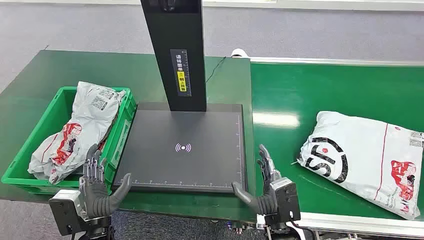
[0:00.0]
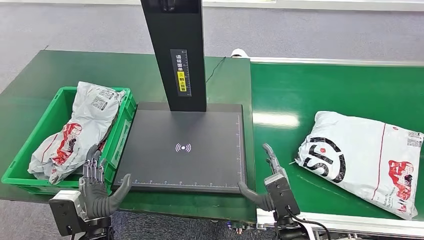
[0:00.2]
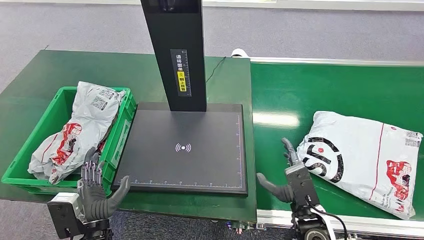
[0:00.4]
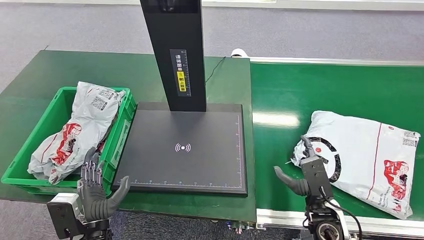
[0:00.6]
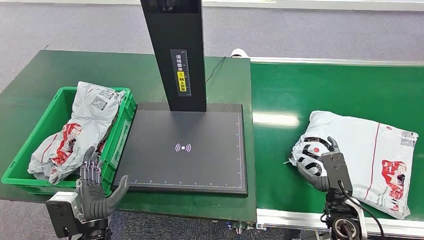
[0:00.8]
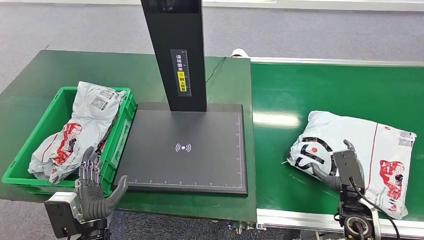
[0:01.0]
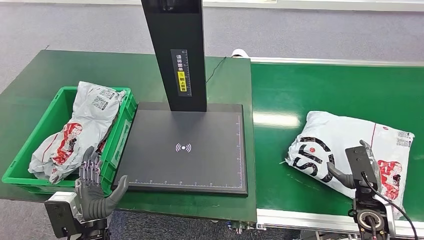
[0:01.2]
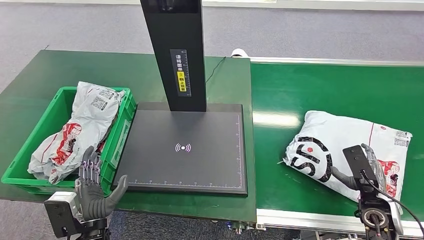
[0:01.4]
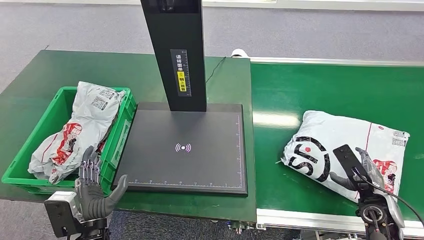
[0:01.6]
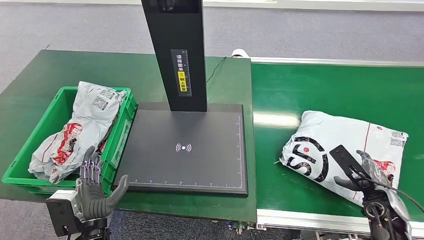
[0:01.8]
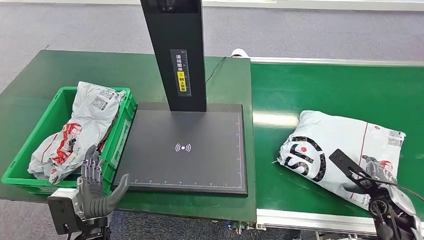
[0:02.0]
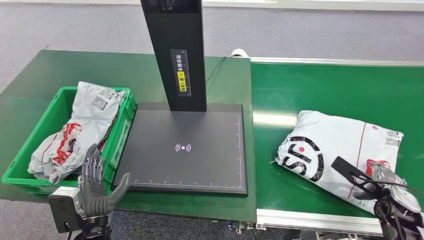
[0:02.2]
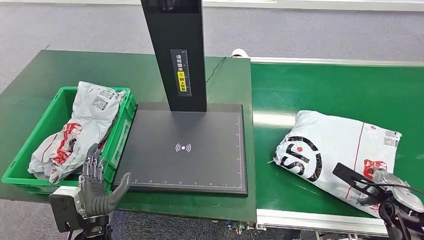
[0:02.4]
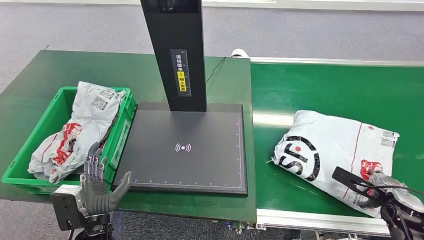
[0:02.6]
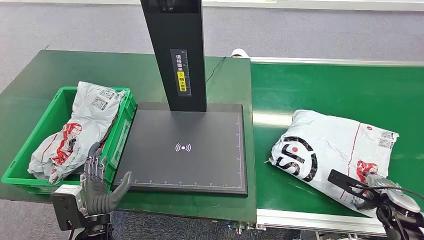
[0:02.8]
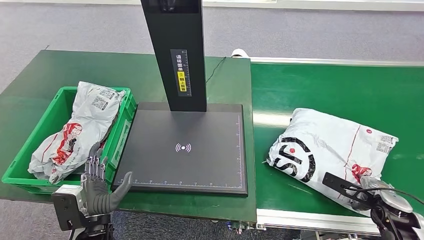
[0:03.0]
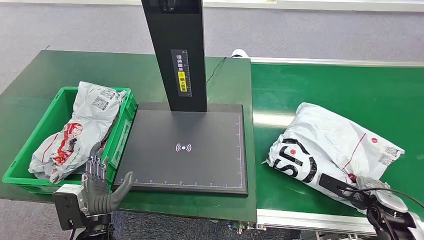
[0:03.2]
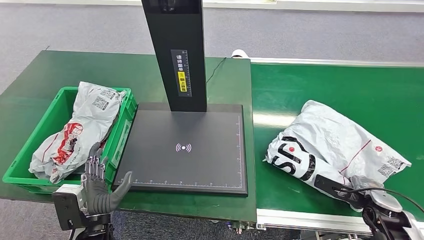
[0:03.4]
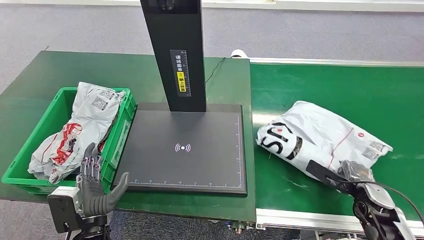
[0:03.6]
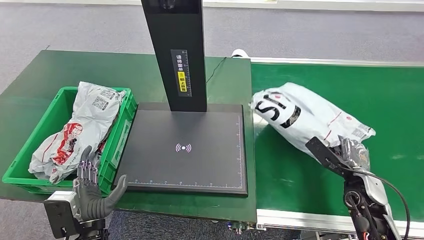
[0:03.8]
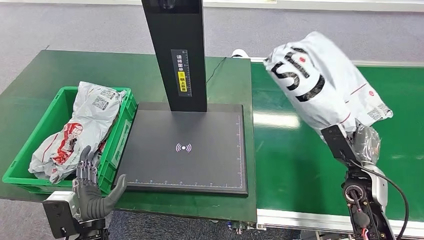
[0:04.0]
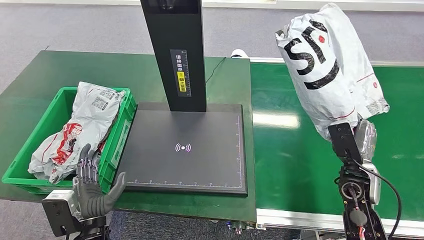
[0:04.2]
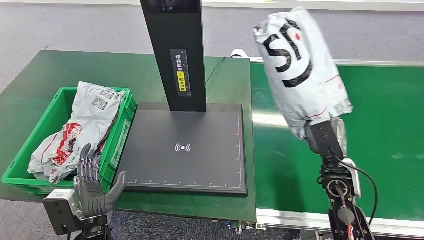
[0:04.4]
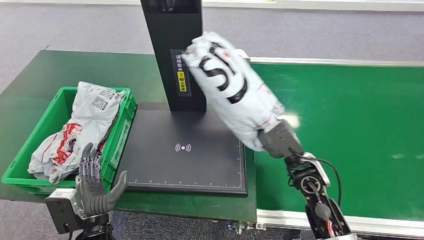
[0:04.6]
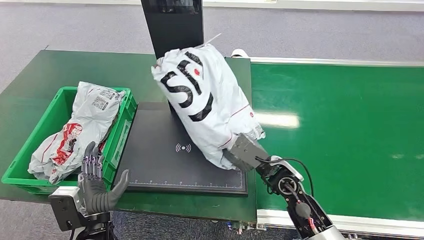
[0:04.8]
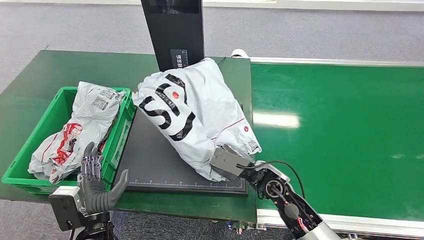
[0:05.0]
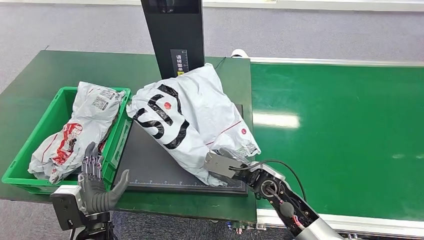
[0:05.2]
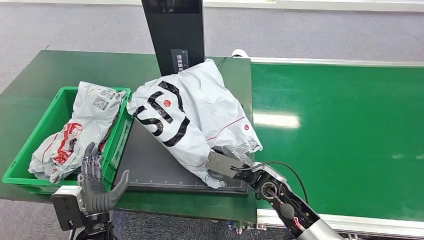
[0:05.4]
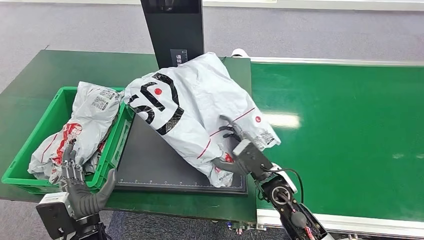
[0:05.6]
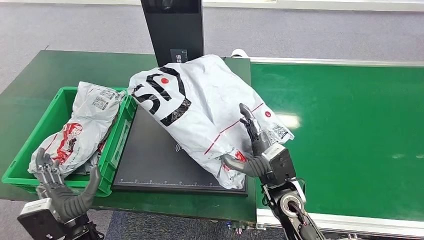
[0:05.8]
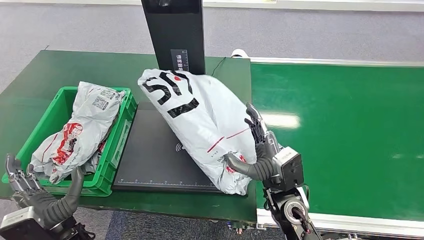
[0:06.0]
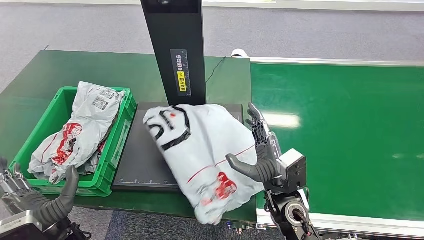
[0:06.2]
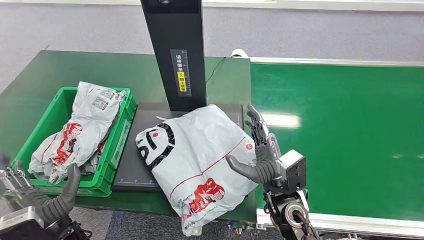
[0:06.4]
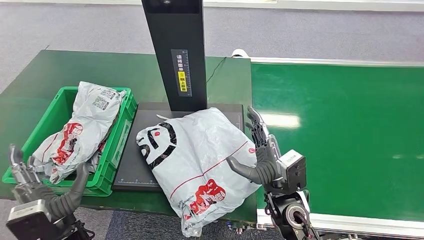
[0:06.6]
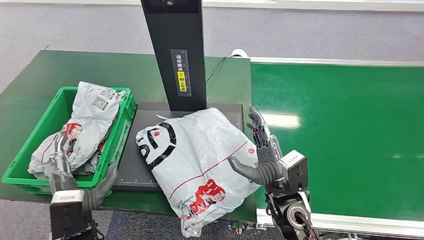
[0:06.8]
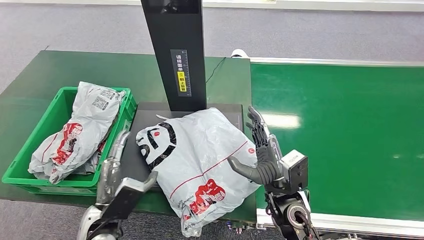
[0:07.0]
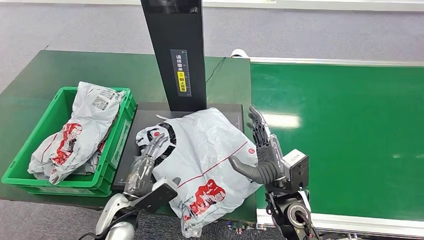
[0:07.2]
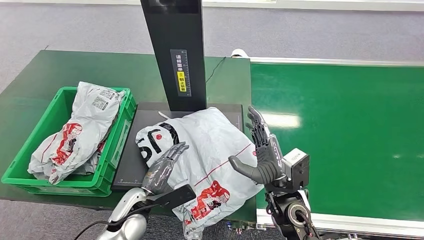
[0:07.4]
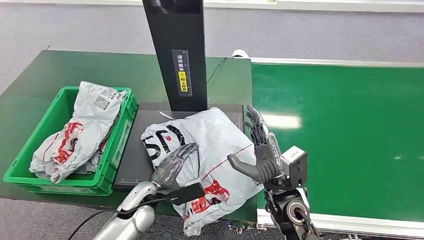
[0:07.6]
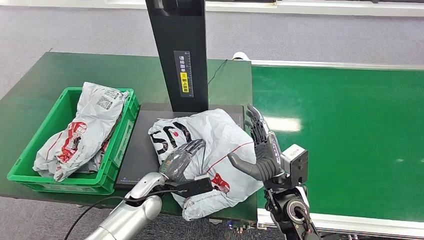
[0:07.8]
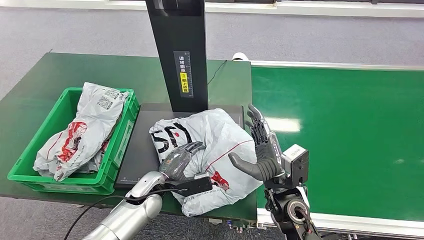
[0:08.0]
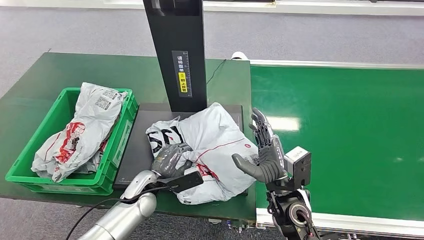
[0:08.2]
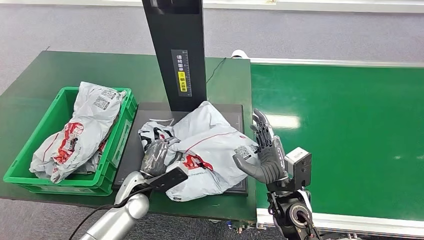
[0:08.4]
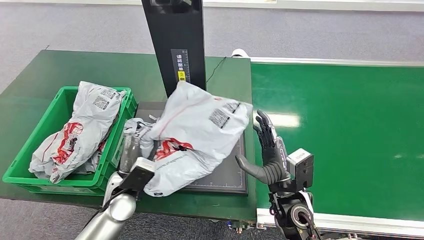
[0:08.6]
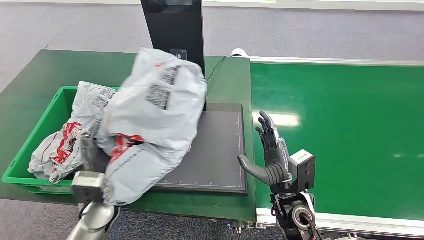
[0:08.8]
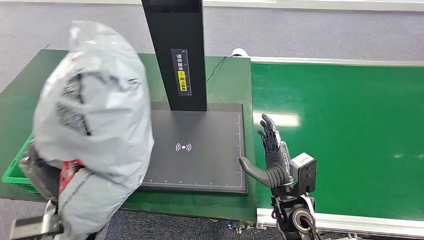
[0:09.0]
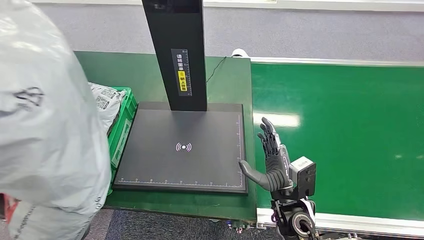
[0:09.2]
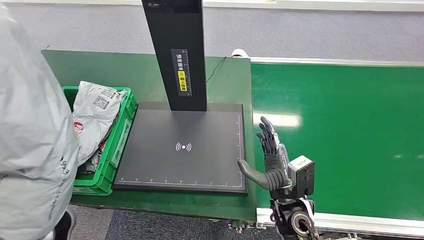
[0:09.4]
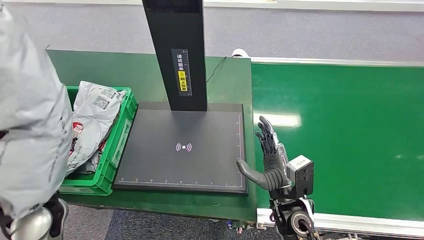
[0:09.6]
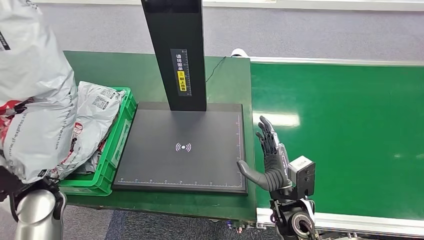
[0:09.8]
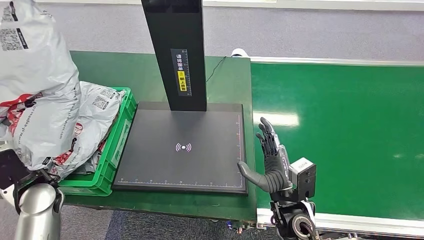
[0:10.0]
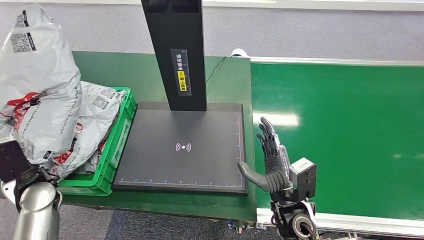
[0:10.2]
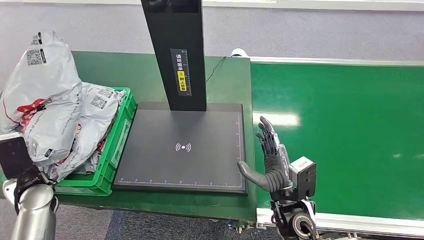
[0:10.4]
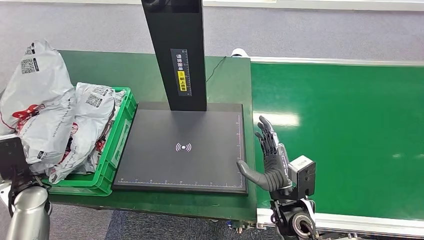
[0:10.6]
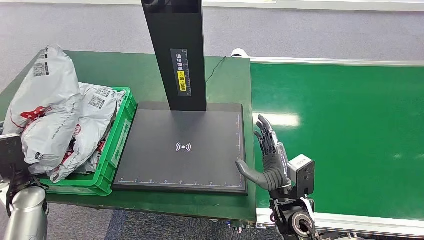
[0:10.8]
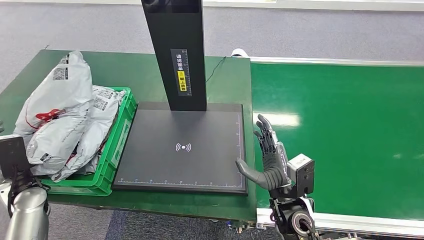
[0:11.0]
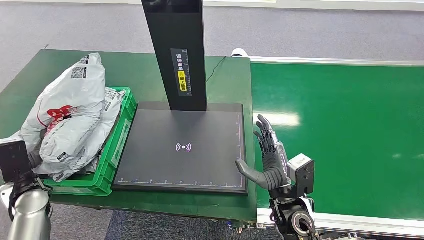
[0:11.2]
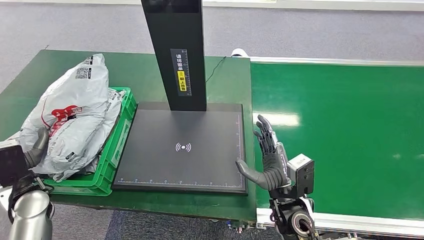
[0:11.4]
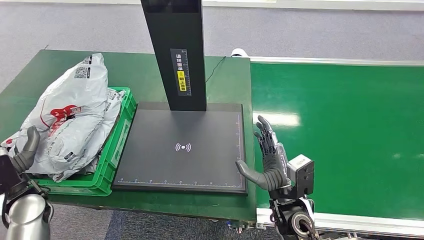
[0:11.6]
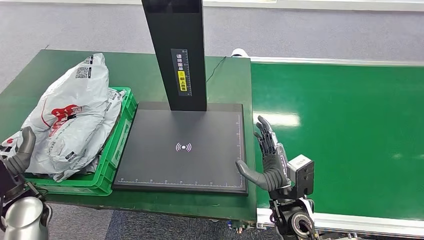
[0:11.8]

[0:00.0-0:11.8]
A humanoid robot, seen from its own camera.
Step, 0:00.0 to 0:04.2: Pick up the package from the conveyor belt.
Step, 0:04.4 to 0:06.8: Place the package onto the inbound machine.
Step, 0:07.0 to 0:09.2: Pick up the package from the inbound machine.
0:01.4 to 0:03.0: The right hand moves to the right, some 5 cm.
0:06.0 to 0:07.4: The left hand is displaced to the right and forward by approximately 10 cm.
0:10.4 to 0:11.8: There are only small adjustments of the hands.

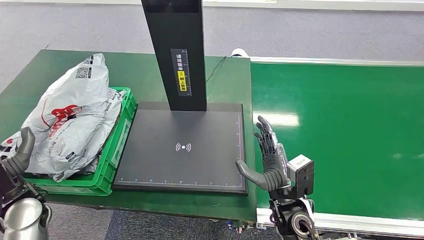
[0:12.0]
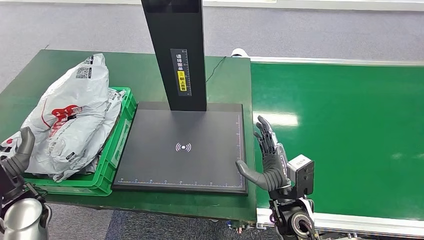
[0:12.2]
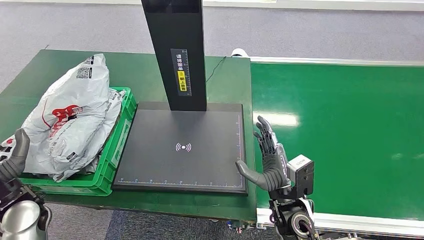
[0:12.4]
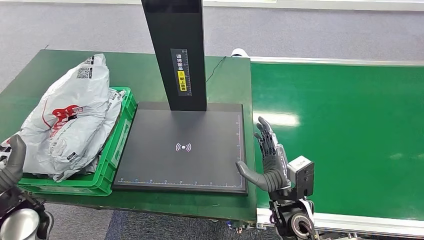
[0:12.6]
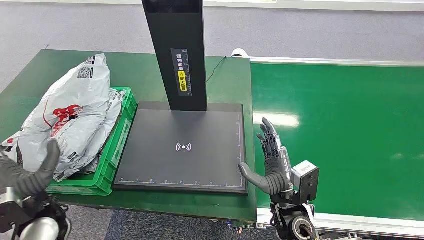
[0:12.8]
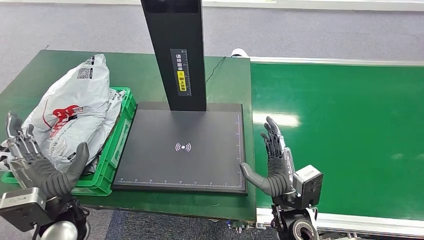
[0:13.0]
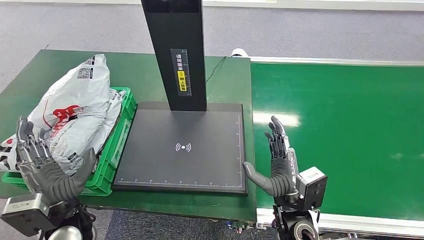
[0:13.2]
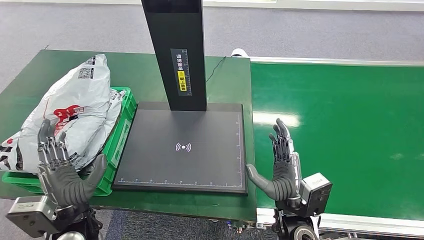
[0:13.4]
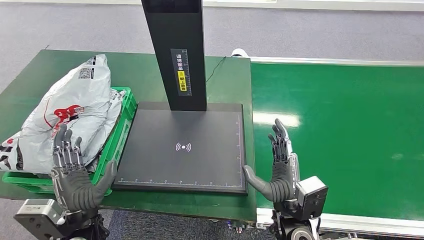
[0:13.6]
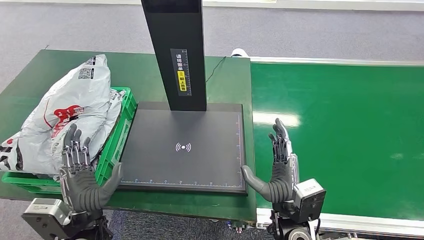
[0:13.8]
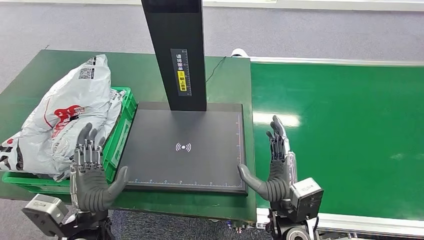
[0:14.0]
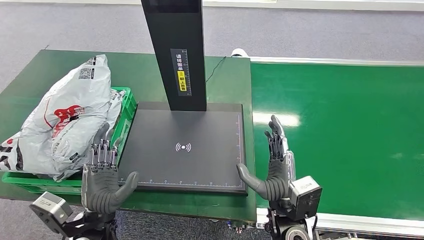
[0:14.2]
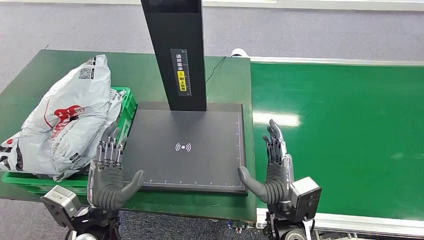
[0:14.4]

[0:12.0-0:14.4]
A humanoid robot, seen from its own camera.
Step, 0:12.0 to 0:14.4: Place the package into the parcel locker.
0:12.0 to 0:13.2: The left hand moves to the right, some 15 cm.
0:13.2 to 0:14.4: The left hand travels to the right by some 5 cm.

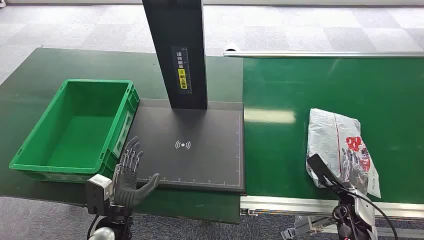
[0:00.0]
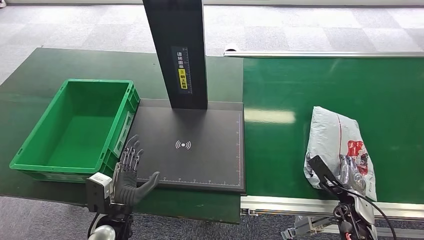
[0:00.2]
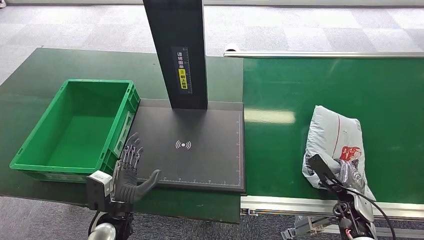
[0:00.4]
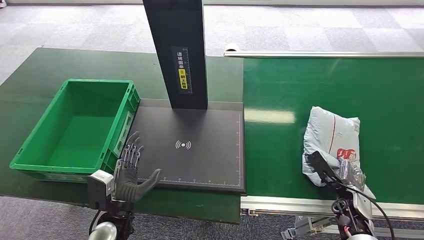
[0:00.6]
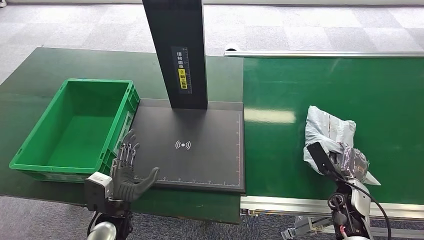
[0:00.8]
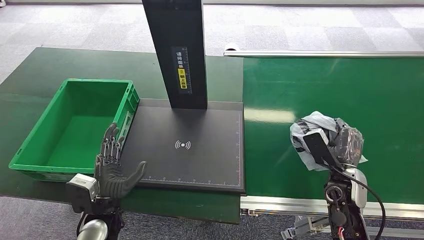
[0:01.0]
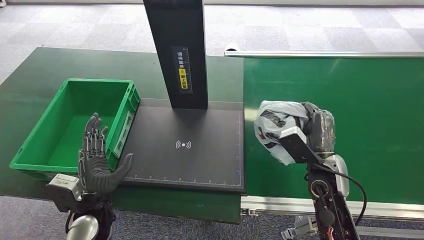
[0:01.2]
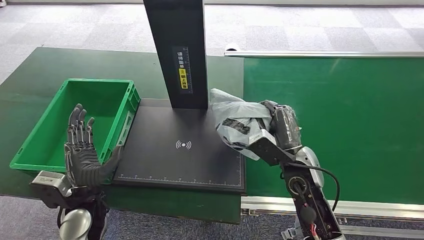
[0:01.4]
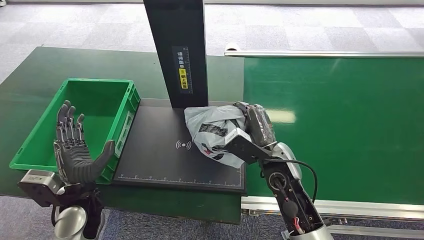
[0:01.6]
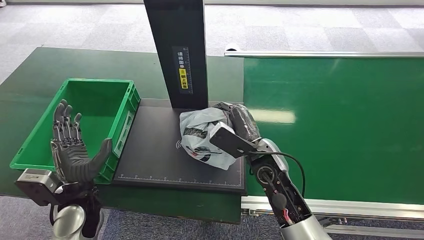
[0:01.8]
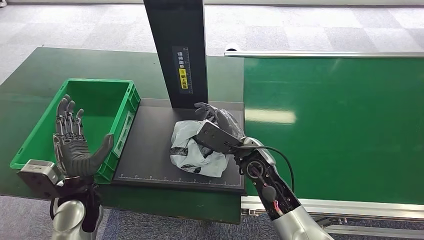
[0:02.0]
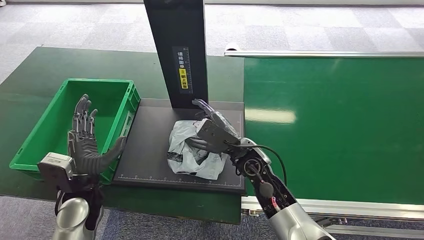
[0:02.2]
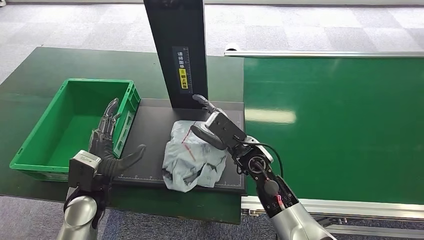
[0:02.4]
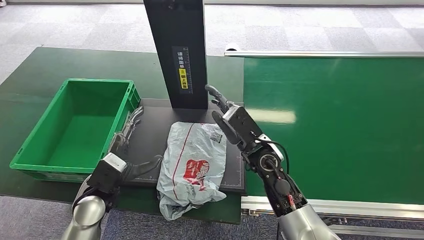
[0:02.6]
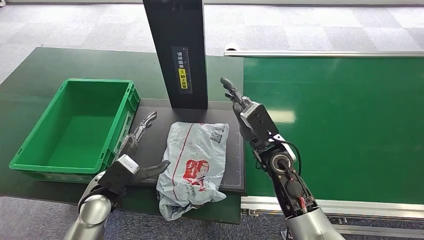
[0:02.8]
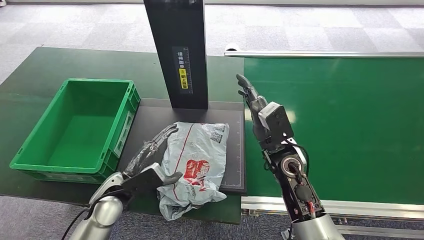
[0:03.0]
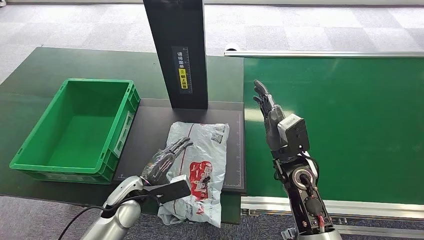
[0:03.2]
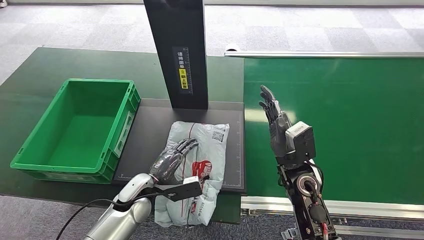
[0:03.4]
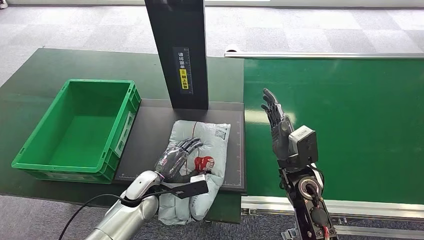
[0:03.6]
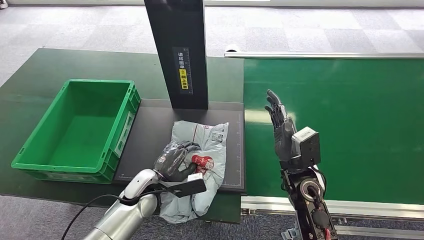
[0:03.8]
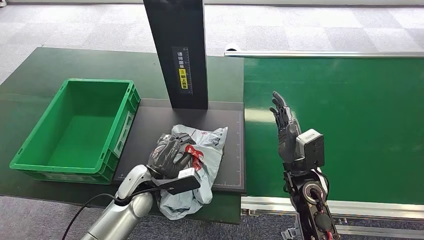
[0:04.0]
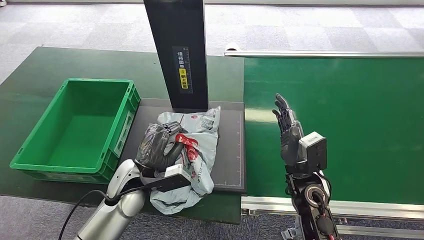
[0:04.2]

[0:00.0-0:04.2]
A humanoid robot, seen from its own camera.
Step, 0:00.0 to 0:01.2: Pick up the package from the conveyor belt.
Step, 0:01.4 to 0:03.4: Place the package onto the inbound machine.
0:01.4 to 0:02.8: The right hand moves to the left, approximately 5 cm.
0:02.8 to 0:04.2: The right hand travels to the right and backward by roughly 10 cm; the left hand is displaced to the right by roughly 5 cm, and moves about 5 cm downward and comes back.
